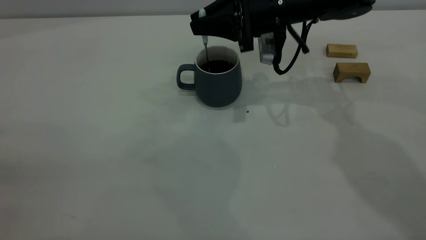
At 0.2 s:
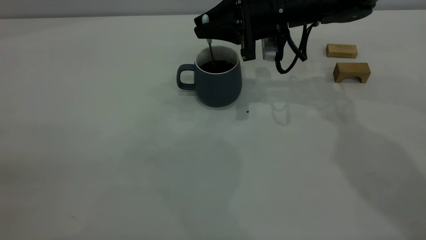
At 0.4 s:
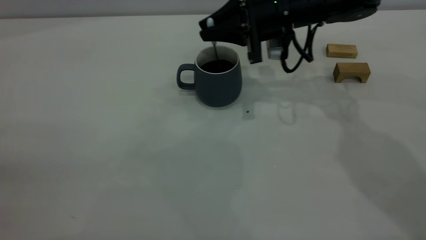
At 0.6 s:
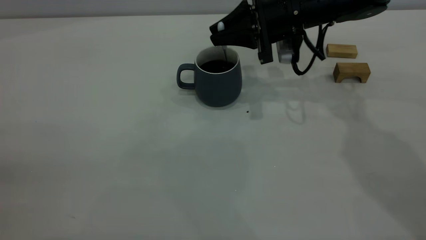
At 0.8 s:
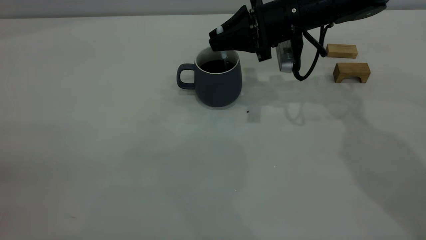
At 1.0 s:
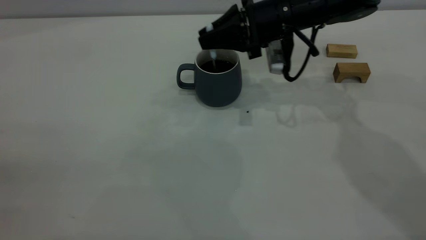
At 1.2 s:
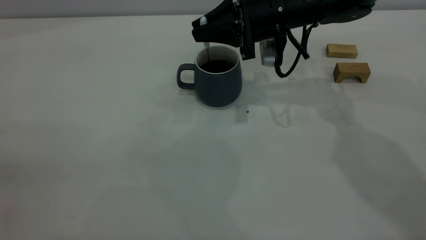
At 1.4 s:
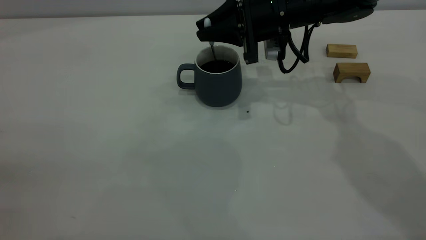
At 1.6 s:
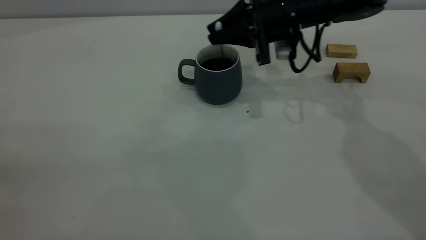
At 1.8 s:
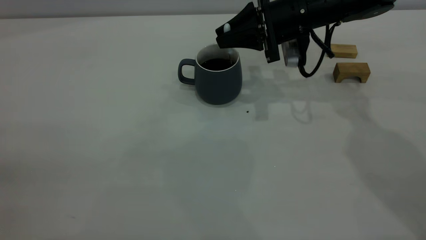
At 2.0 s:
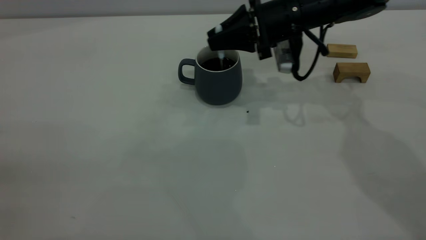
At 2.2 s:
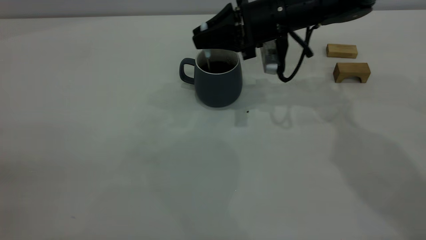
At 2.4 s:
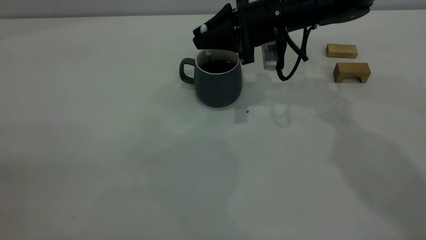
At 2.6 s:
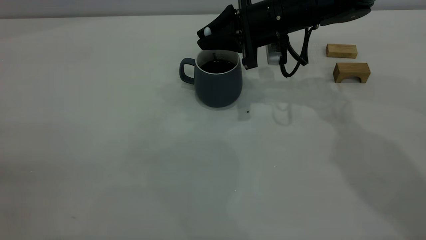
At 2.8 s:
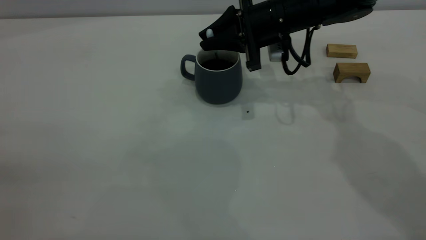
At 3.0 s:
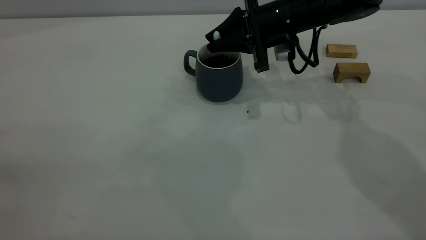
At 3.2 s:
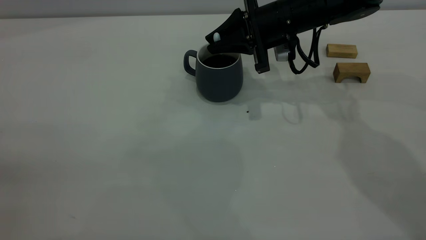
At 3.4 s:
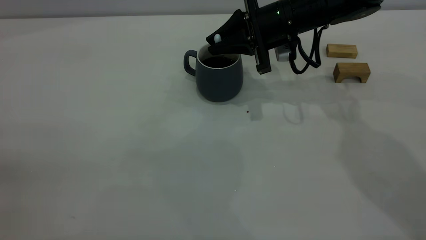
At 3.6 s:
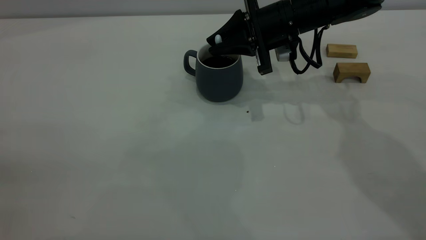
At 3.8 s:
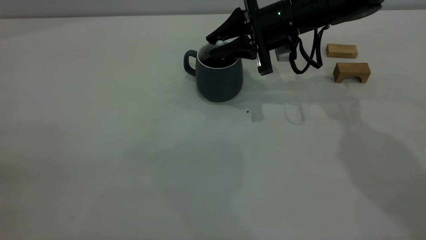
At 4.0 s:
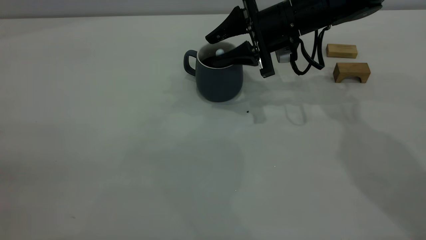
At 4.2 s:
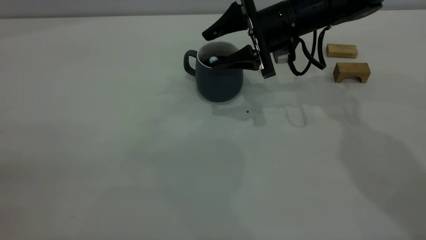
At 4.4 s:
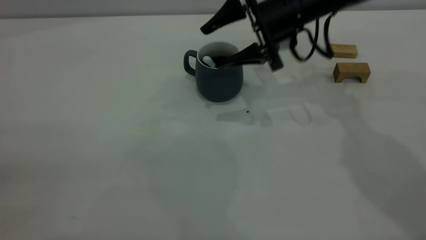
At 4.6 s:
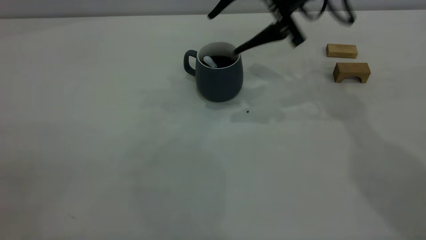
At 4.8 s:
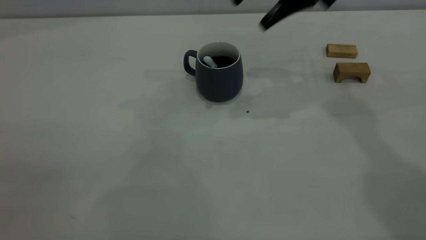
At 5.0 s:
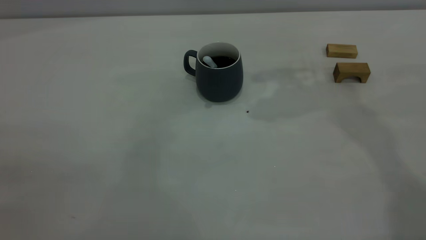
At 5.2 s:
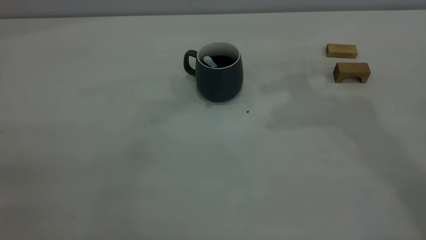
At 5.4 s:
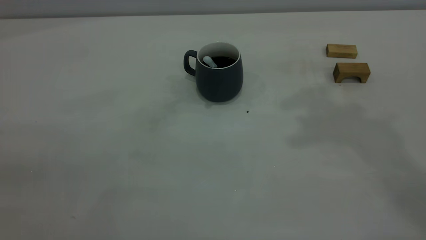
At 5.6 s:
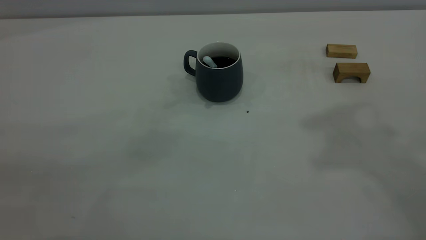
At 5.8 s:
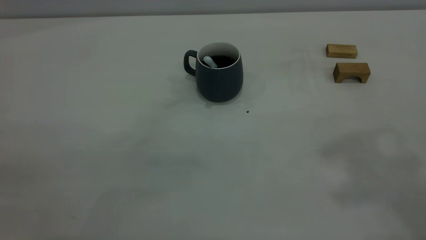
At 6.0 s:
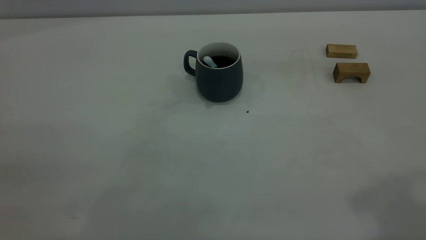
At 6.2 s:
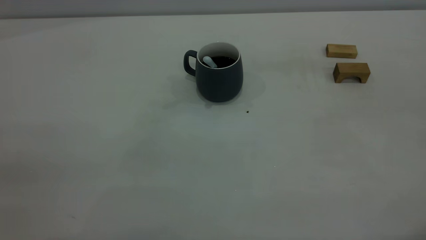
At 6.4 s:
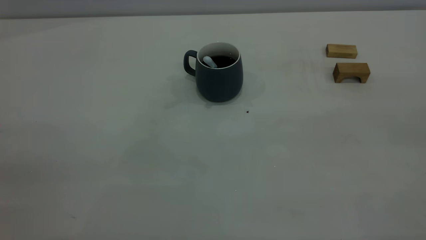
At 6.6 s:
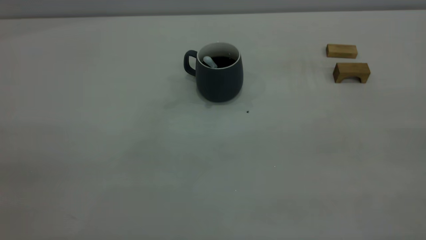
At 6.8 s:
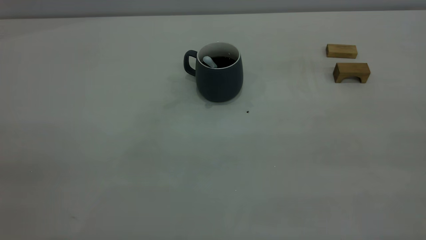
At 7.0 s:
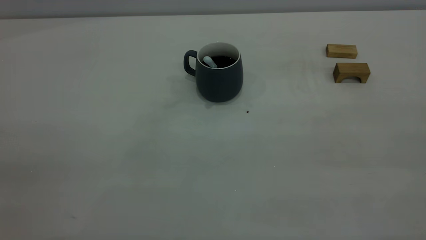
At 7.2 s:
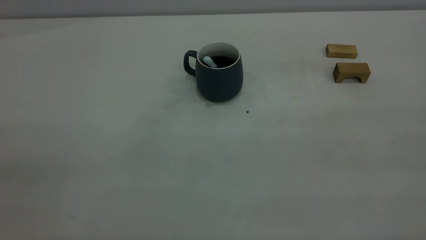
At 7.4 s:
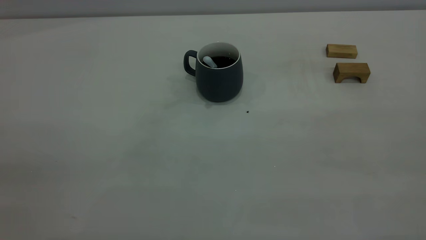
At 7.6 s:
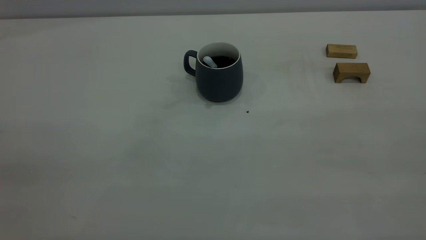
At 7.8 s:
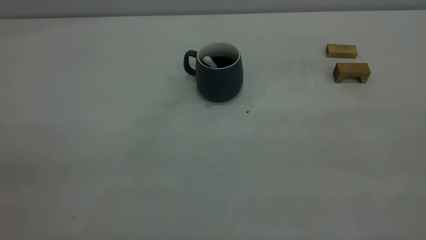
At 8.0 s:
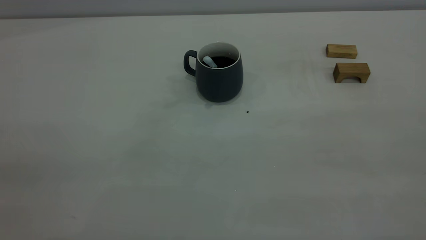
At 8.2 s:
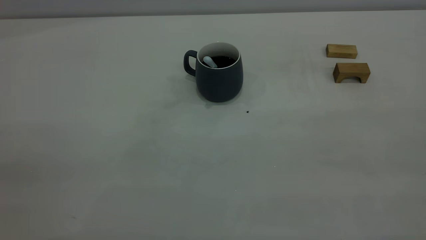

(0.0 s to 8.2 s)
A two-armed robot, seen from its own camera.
Step, 0.0 s - 4.6 s: Stir the coffee in the cup.
0.0 s - 1.6 s: The grippers move only a little.
3.2 s - 5.0 s: The right gripper shifts roughly 25 cm upward, and opens up.
